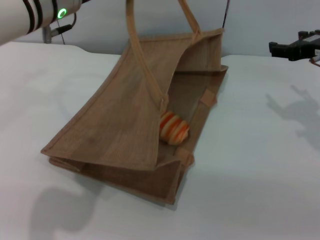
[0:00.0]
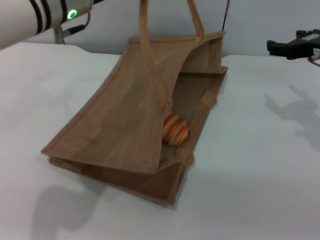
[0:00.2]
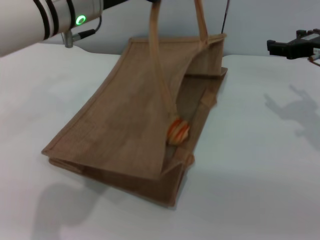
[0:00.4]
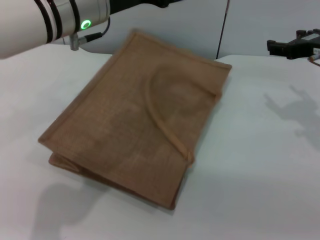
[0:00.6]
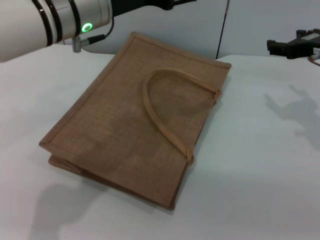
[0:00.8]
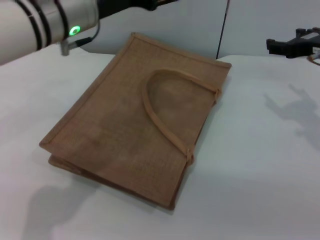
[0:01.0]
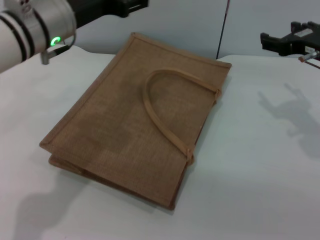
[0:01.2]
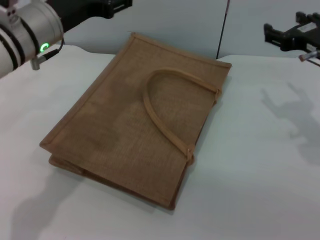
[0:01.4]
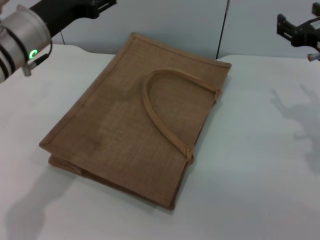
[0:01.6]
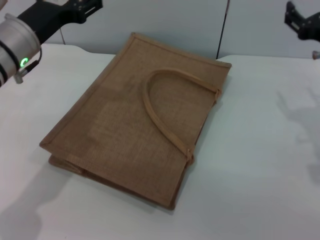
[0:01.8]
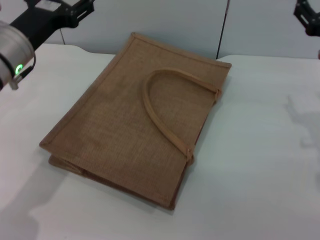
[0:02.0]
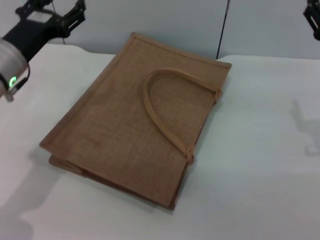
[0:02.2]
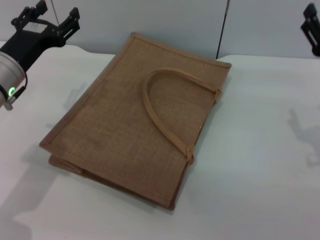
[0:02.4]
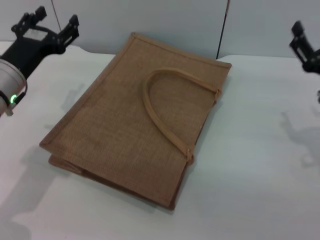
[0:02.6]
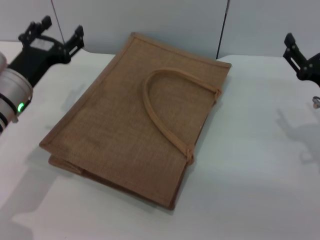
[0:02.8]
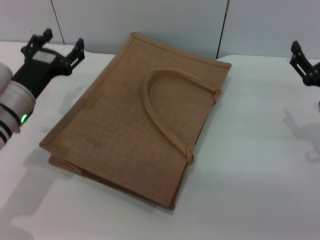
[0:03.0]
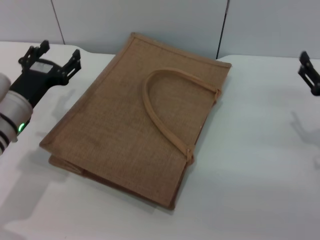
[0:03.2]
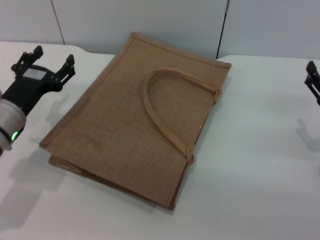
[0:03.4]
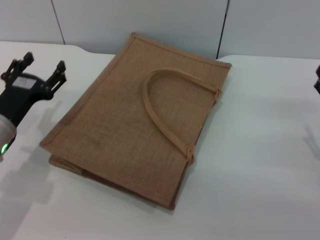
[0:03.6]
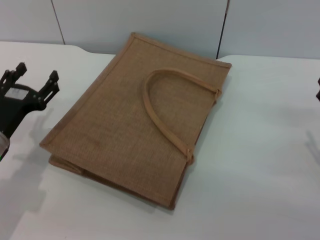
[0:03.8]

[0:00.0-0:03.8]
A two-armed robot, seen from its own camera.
Task of the whole recording: pick up the bread from the table and place it in the brown handbag.
0:00.0 to 0:01.2: The grippers move only a little.
0:01.2 to 0:02.6: The right gripper heads downward and backward, covering approximately 10 cm. Meanwhile the left gripper goes some 10 cm downward and to the left.
0:02.6 to 0:03.8: The left gripper shifts approximately 10 cm downward and backward. The right gripper goes about 5 cm backward.
